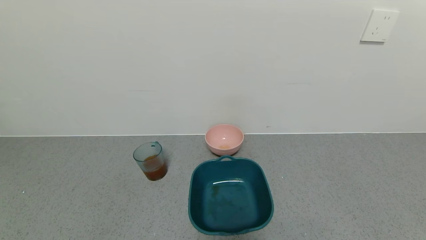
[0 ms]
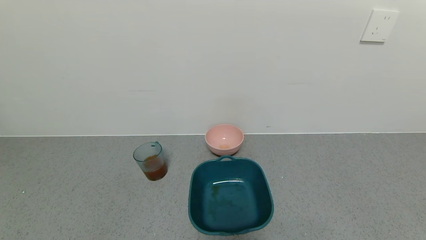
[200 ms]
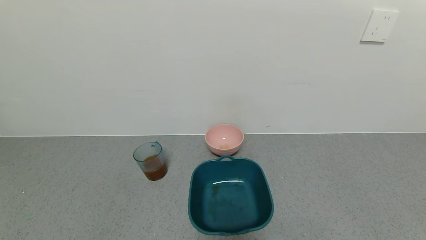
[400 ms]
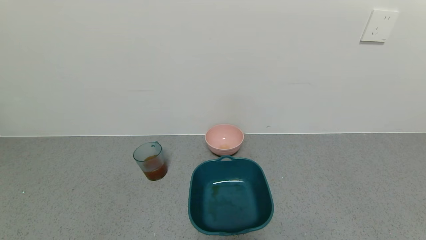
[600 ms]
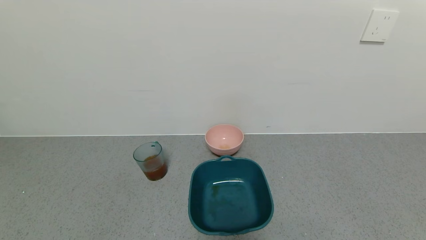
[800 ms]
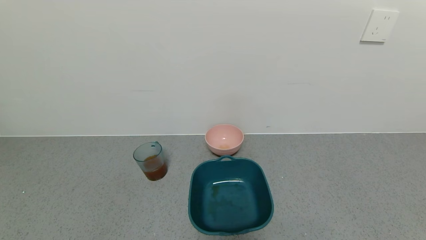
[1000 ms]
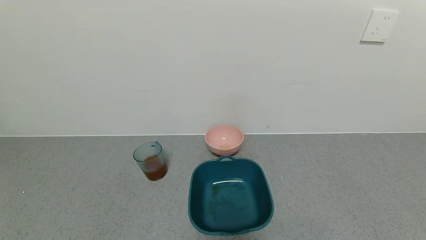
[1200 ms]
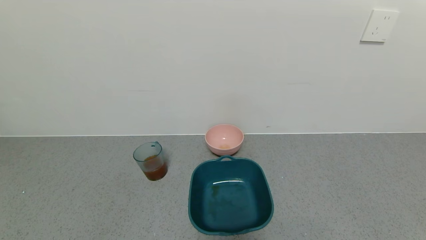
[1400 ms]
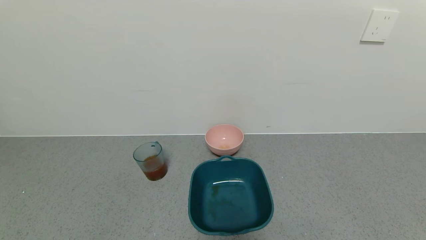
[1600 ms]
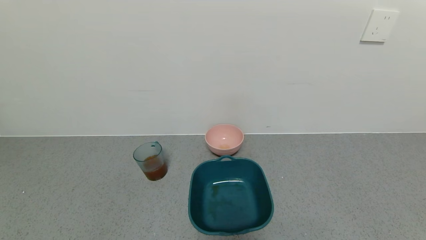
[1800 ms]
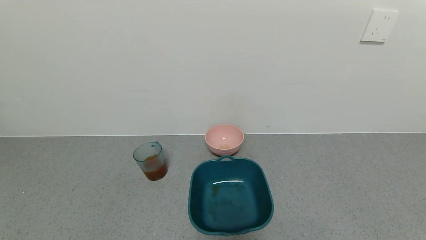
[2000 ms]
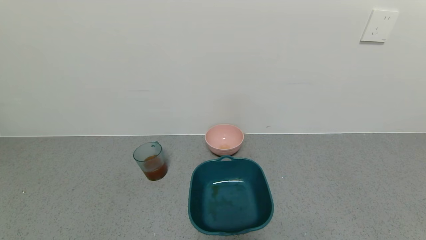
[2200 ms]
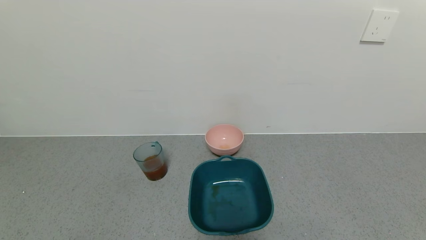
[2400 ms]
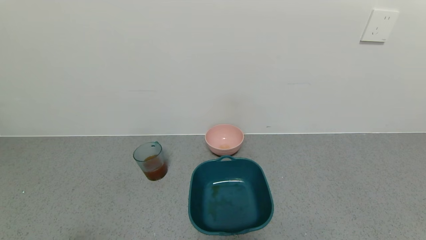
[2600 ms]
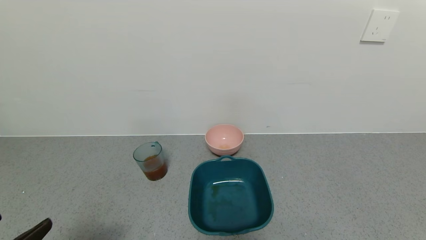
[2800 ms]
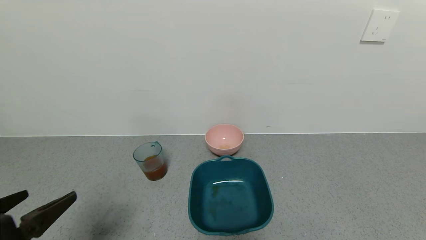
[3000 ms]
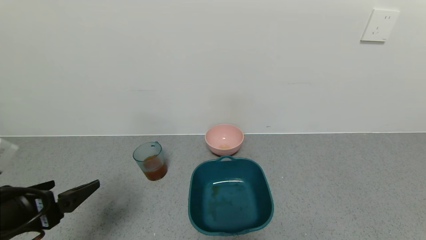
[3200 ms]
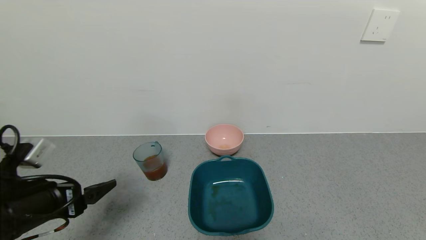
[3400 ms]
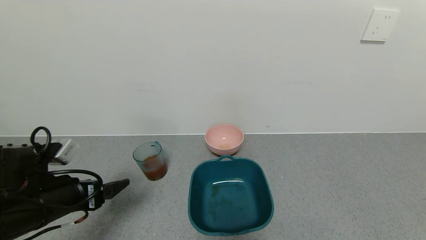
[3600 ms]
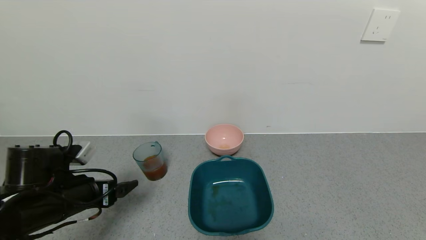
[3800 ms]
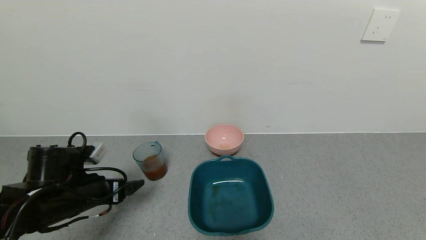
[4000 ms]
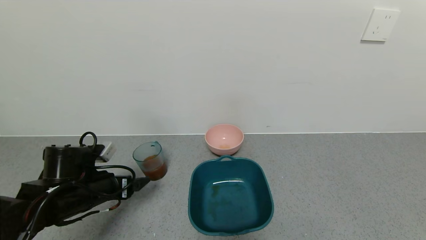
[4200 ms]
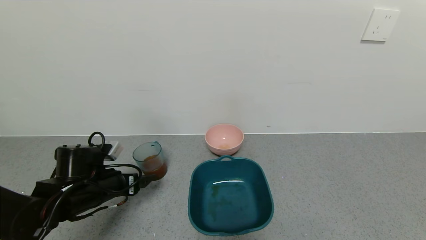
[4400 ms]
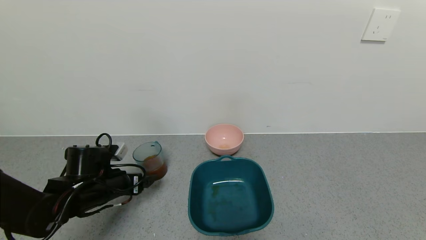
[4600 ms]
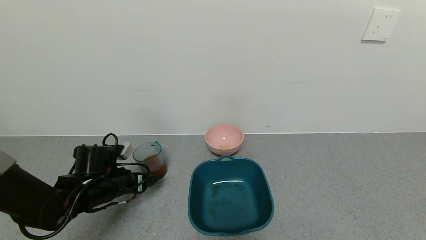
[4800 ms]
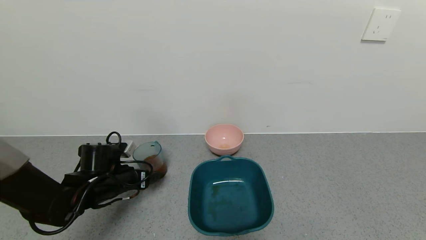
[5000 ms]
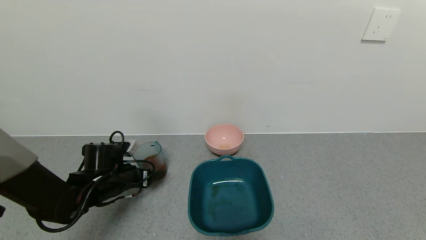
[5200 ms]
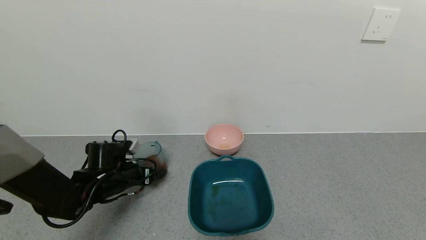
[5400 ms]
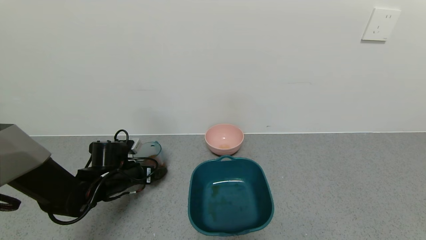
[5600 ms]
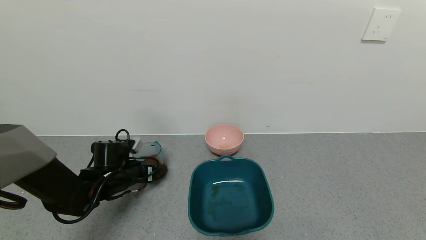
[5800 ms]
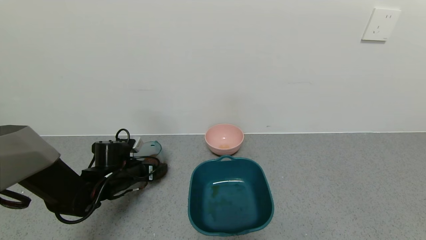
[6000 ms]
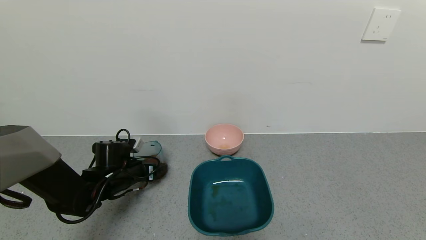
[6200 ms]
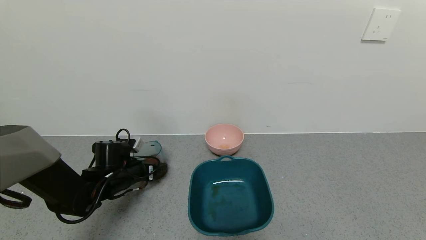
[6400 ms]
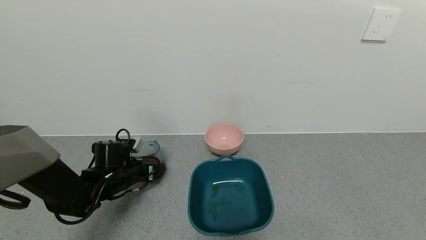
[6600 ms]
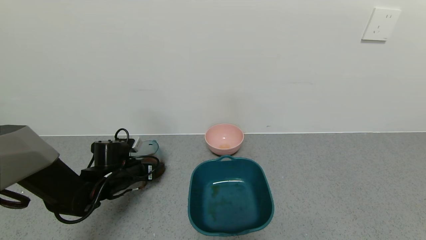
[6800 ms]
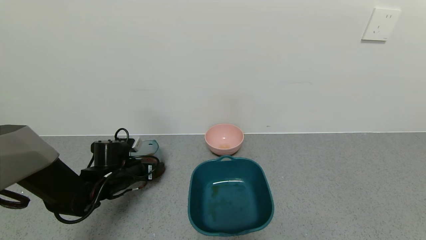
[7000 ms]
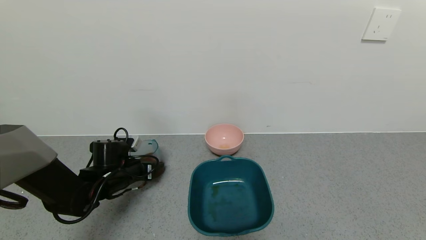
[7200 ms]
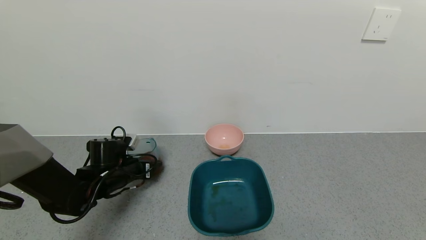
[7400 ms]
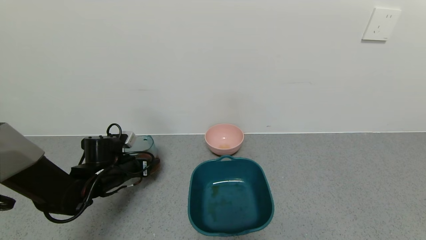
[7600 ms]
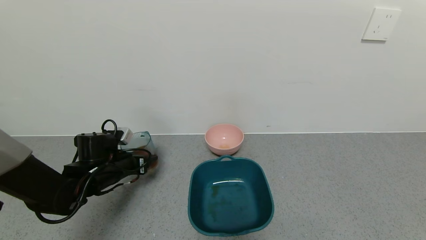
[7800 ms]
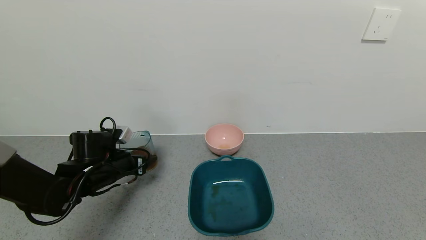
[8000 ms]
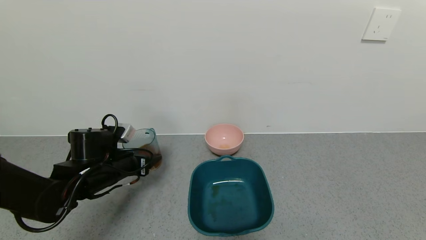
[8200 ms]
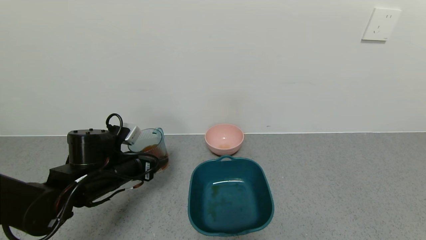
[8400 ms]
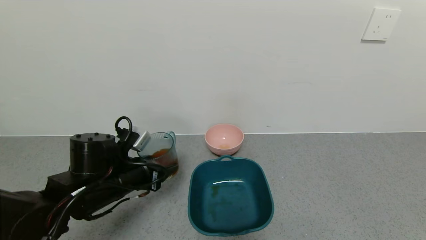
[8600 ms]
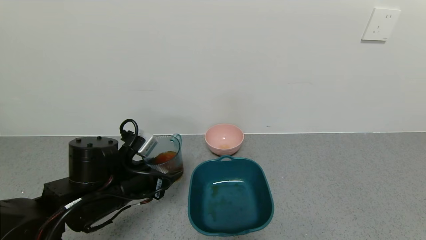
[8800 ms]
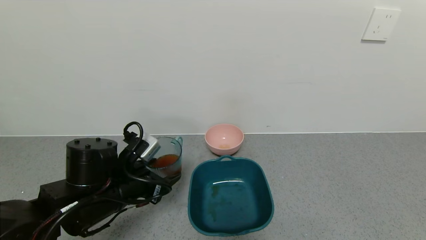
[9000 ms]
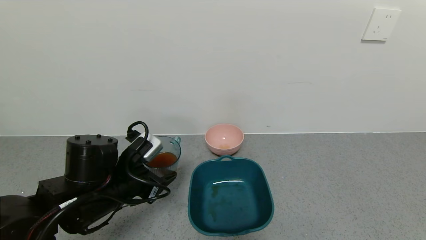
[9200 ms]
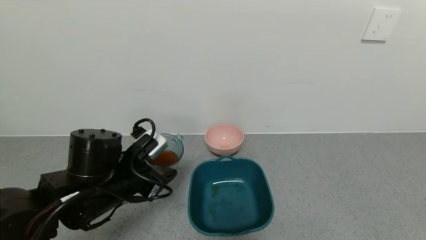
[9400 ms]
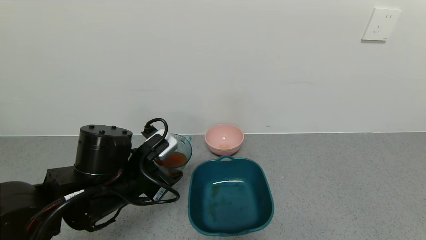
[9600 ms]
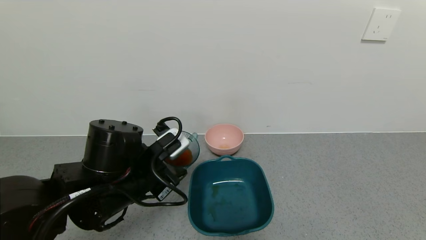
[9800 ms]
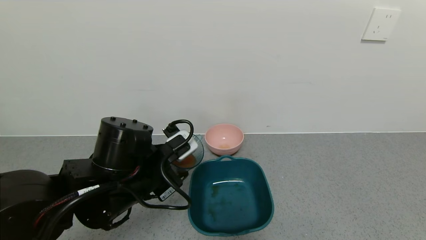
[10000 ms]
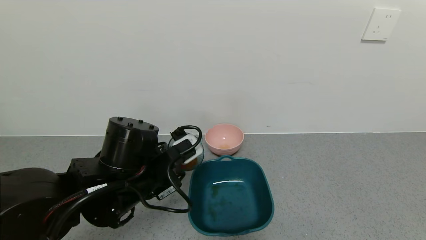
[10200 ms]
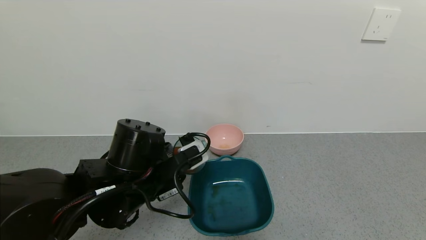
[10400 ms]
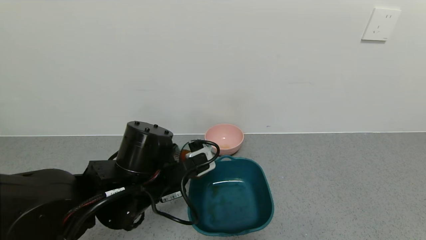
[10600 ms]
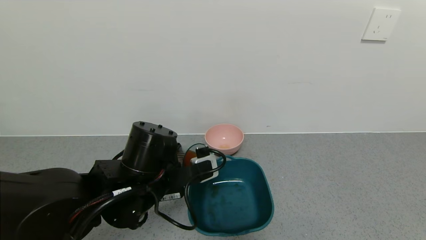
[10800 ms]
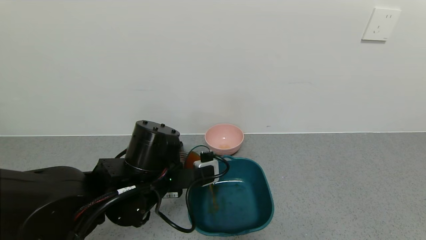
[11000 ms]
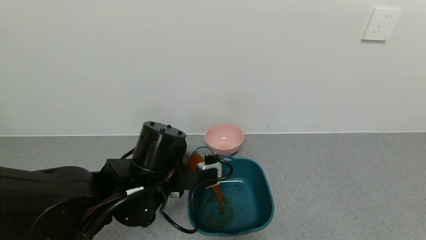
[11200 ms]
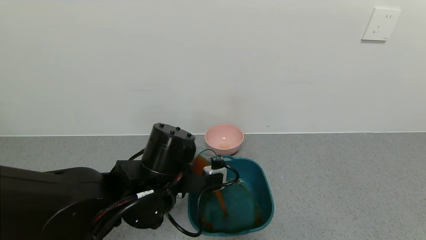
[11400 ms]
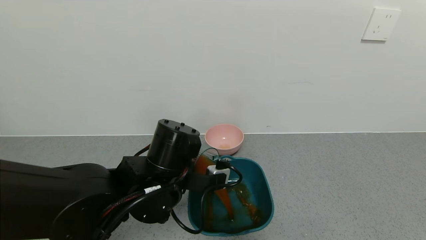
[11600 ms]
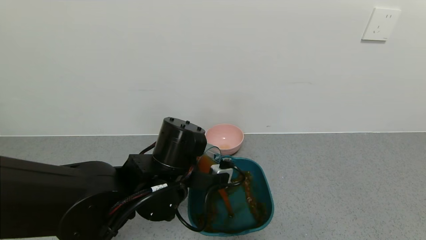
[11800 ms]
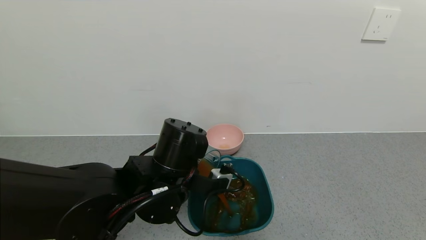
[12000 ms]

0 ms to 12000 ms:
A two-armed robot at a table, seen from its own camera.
Task of the whole recording: use a gripper to pick up the cup and pour the liquid into a bowl or tray.
Step, 0 ms to 6200 ms: Pick up blue cup filled with tea with left gripper.
Step, 6400 ms to 10600 ms: Pour the tea into the blue basin with left gripper.
0 ms to 1600 ms: The two grippers keep their place.
1600 ms to 3000 ms: The left gripper moves upward and forward, approximately 15 cm.
3000 ms to 4400 ms: The left gripper heads forward and downward, covering approximately 20 cm.
4400 ms to 6000 ms: The left gripper moves forward, roughly 5 cm.
6000 ms to 7600 ms: The left gripper closes its fingers.
7600 ms to 9000 ms: The left gripper goes roughly 15 cm backward, to the right and upward.
9000 ms to 10400 ms: The left gripper travels to the right by about 5 cm.

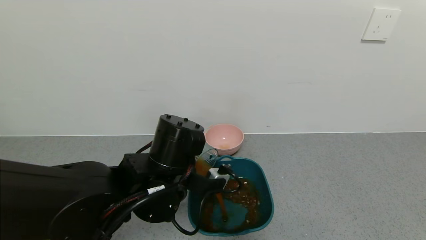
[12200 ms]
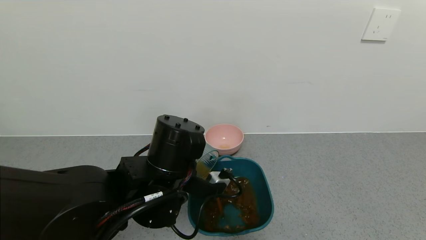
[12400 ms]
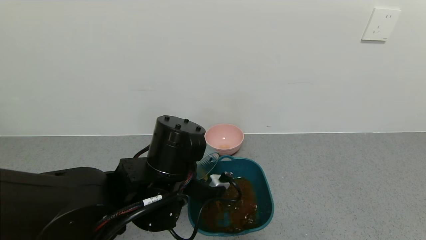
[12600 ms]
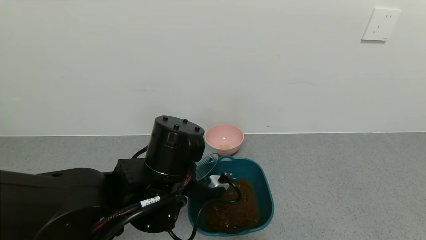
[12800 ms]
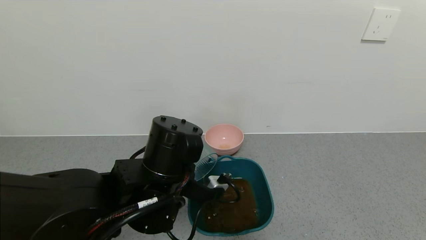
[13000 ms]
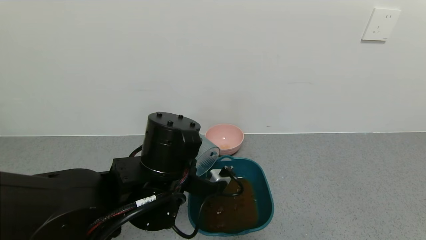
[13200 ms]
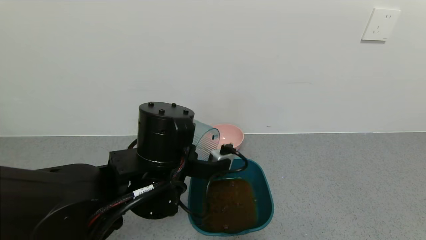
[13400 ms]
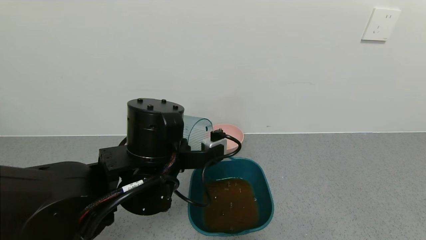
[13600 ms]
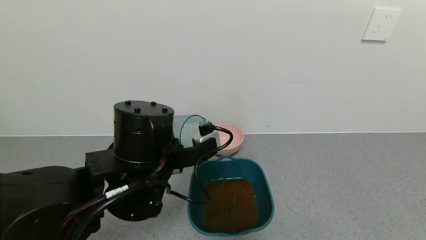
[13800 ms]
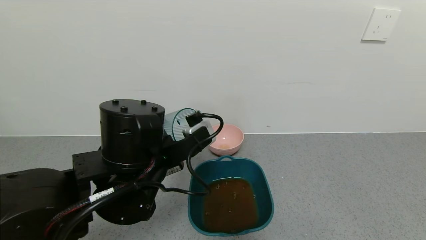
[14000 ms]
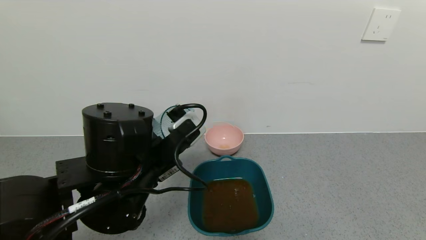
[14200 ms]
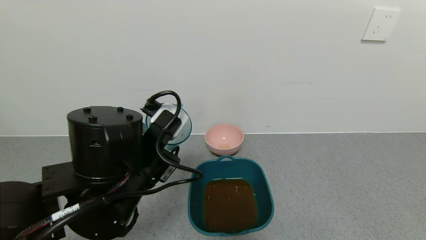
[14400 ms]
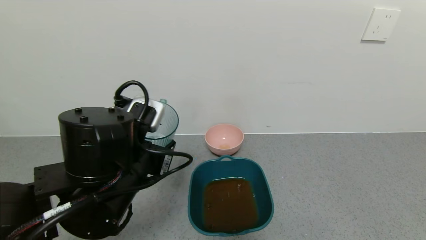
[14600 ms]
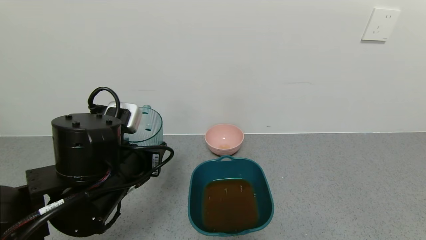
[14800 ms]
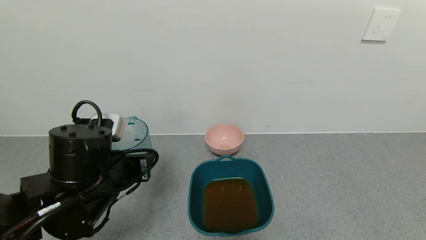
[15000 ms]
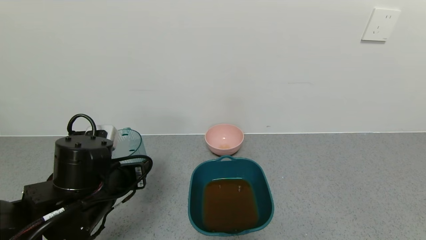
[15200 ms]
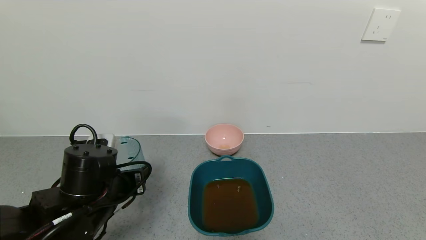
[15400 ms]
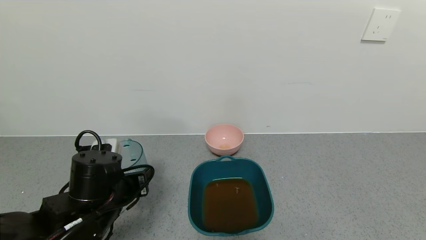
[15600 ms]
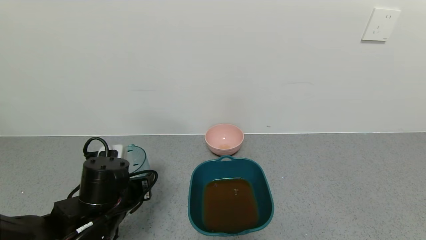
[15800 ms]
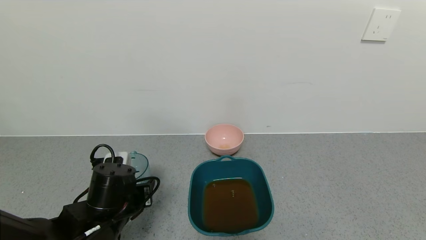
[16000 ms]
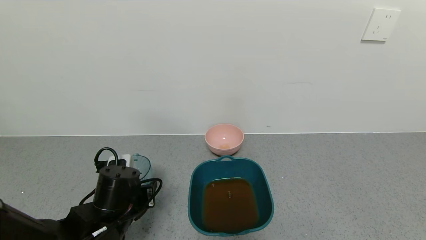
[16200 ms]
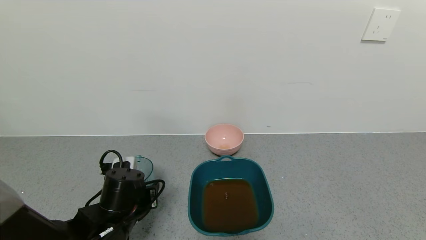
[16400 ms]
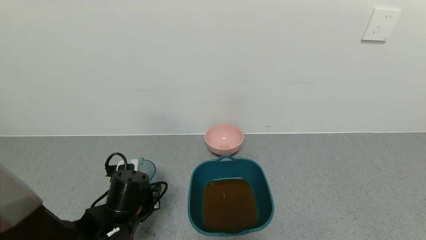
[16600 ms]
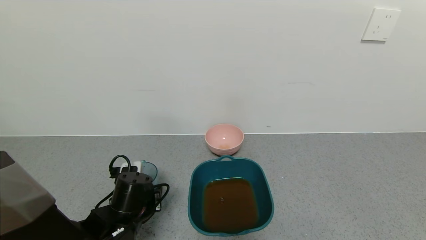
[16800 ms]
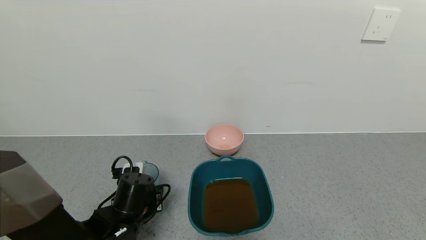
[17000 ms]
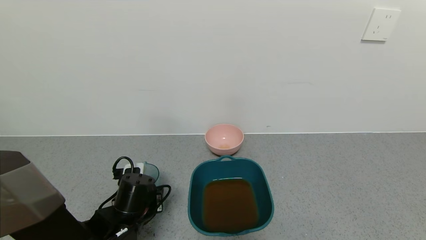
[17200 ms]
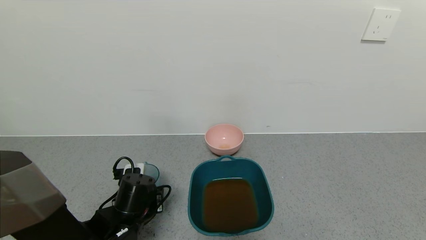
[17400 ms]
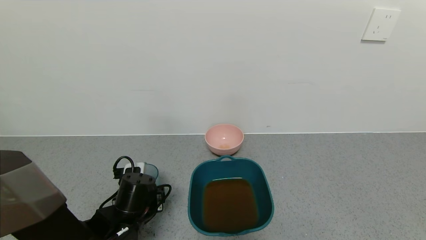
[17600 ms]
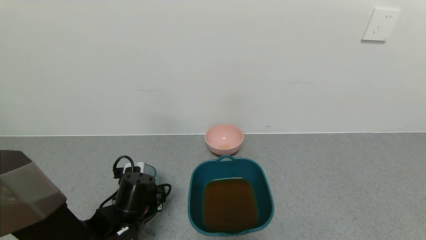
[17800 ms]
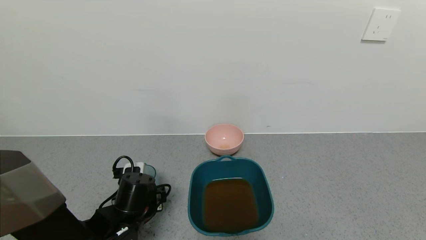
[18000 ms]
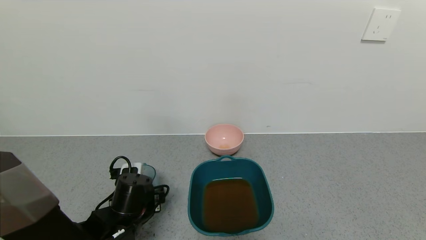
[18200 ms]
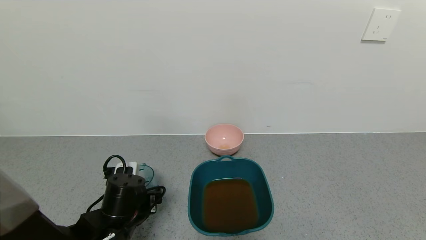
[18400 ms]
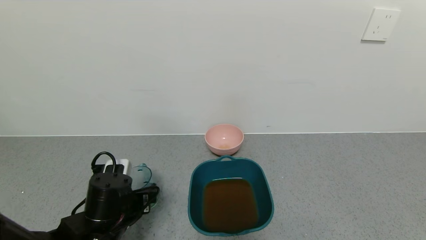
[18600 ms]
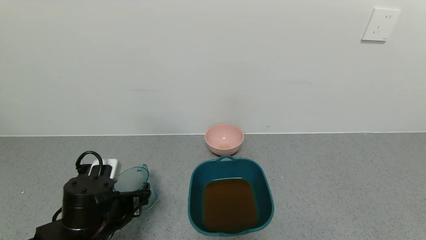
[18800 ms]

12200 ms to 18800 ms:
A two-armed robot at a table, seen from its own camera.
Task of the whole recording: use a gripper to pick up the cup and pour the liquid into a bowl or tray.
Step, 12200 ms to 17800 ms: Place blue cup with tea on the table with left gripper.
13800 ms to 15400 ms: The left gripper shifts roughly 10 cm to the left and downward.
15400 ms to 17200 ms: The left gripper goes some 10 cm downward.
17200 ms to 18800 ms: The left gripper moves some 5 cm, and opens its fingers.
